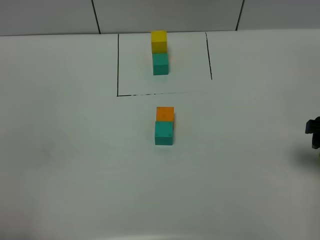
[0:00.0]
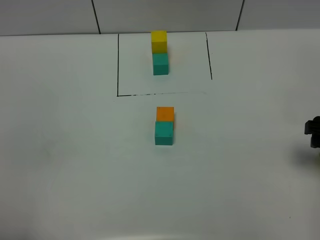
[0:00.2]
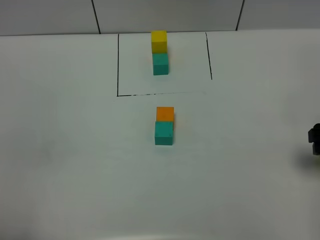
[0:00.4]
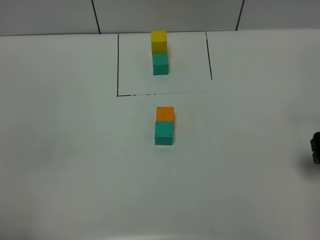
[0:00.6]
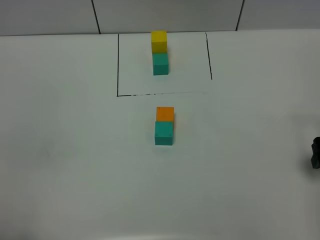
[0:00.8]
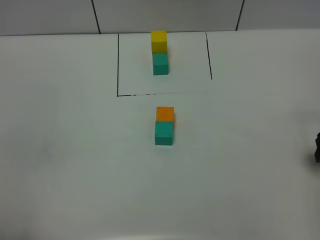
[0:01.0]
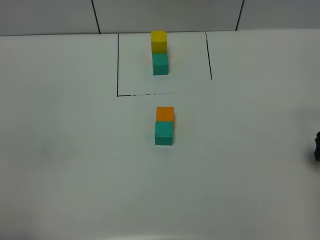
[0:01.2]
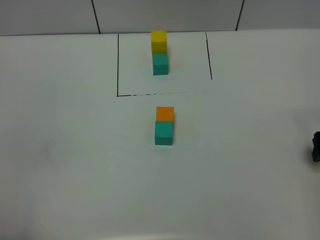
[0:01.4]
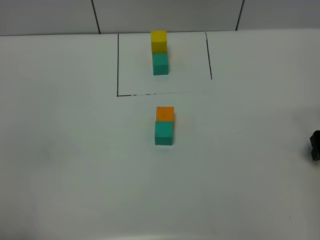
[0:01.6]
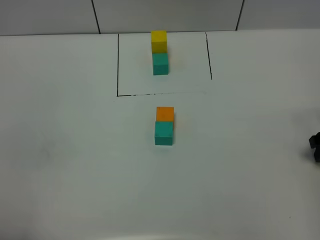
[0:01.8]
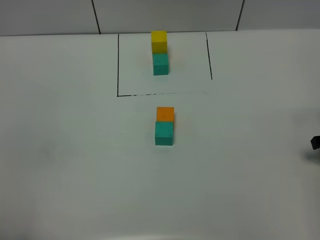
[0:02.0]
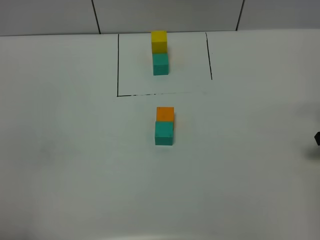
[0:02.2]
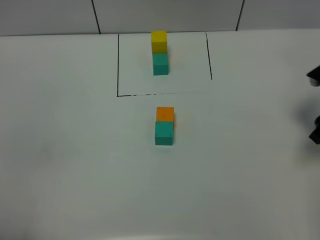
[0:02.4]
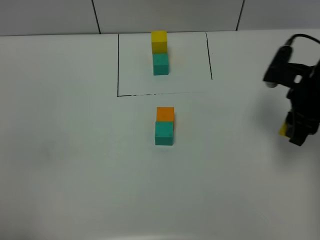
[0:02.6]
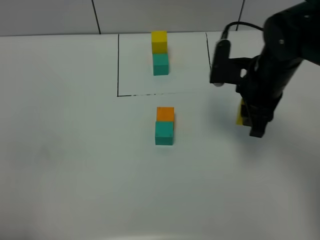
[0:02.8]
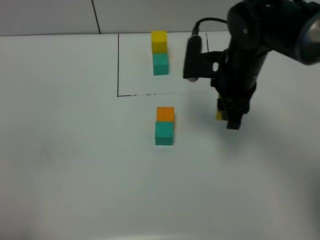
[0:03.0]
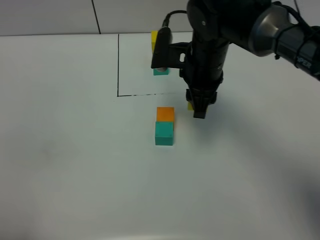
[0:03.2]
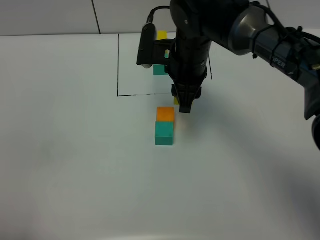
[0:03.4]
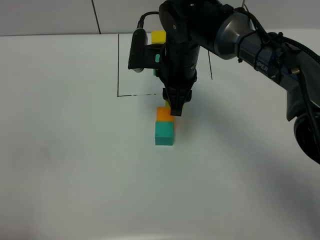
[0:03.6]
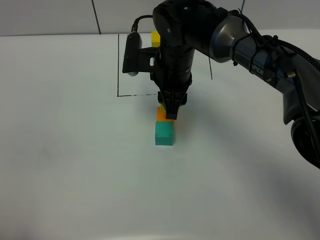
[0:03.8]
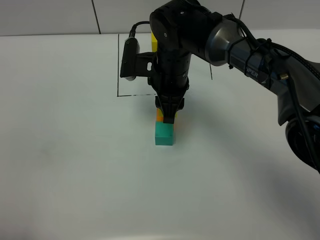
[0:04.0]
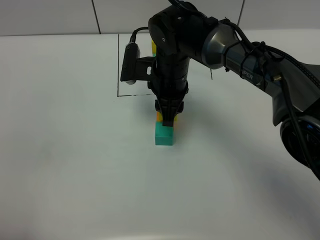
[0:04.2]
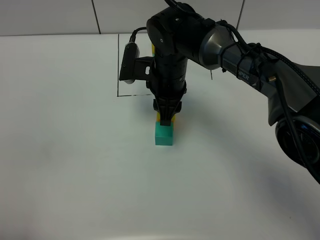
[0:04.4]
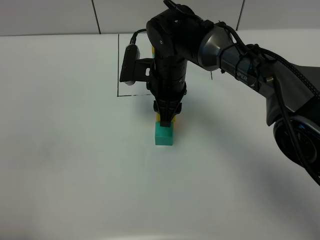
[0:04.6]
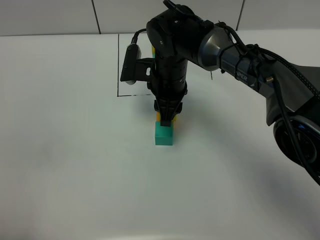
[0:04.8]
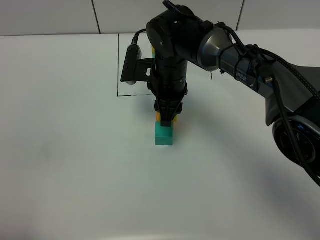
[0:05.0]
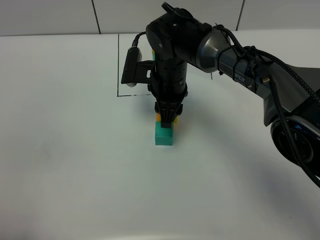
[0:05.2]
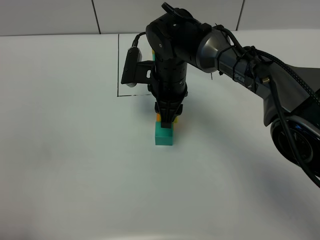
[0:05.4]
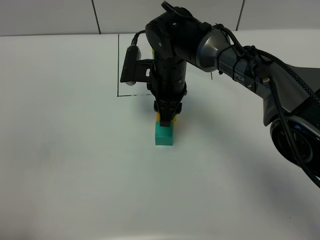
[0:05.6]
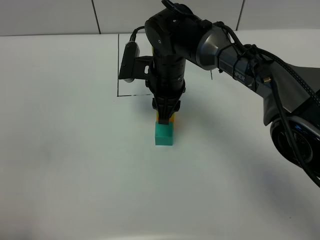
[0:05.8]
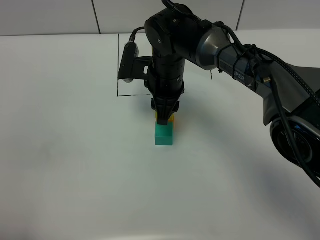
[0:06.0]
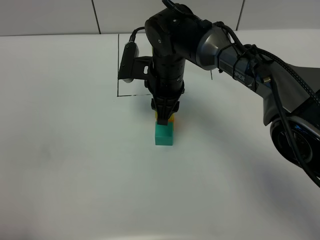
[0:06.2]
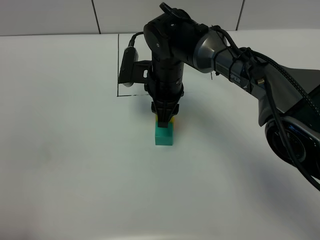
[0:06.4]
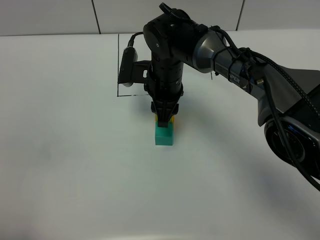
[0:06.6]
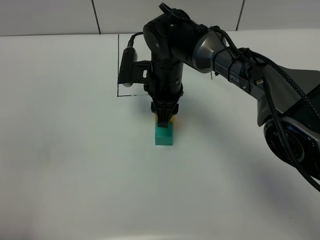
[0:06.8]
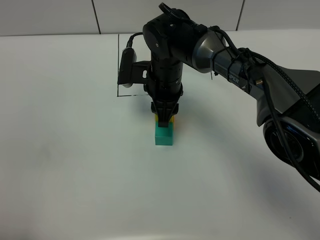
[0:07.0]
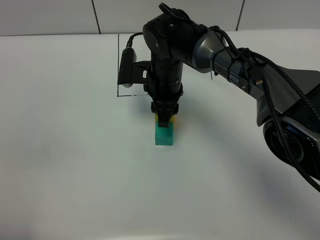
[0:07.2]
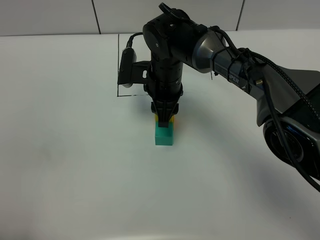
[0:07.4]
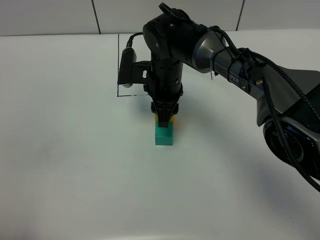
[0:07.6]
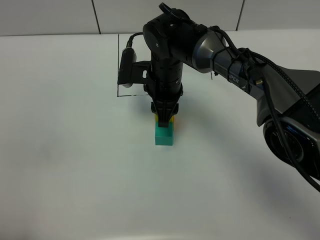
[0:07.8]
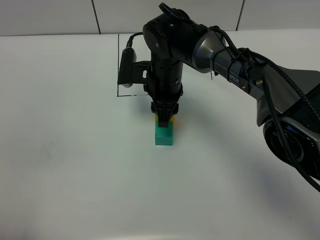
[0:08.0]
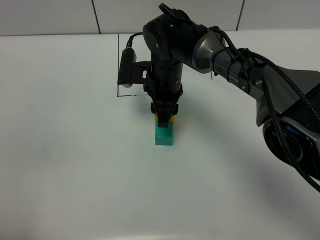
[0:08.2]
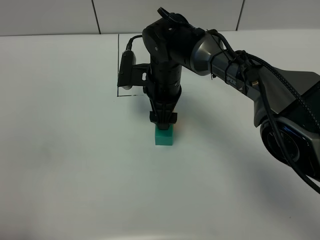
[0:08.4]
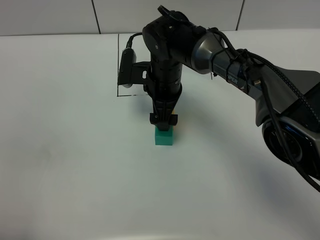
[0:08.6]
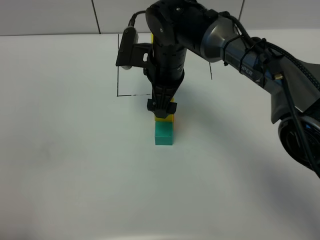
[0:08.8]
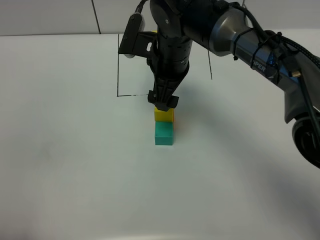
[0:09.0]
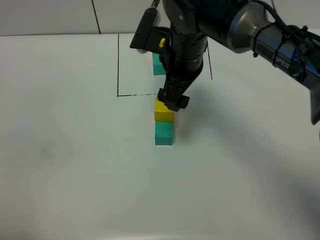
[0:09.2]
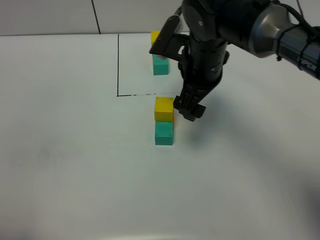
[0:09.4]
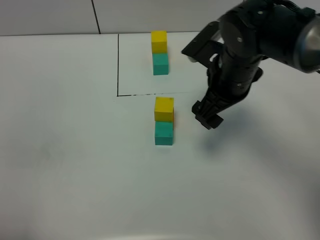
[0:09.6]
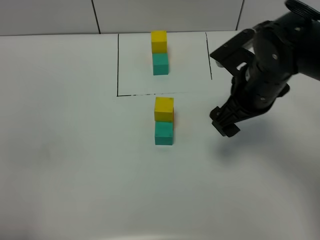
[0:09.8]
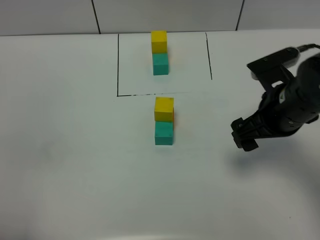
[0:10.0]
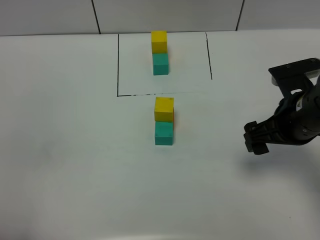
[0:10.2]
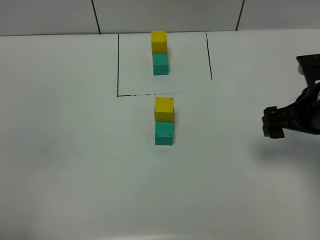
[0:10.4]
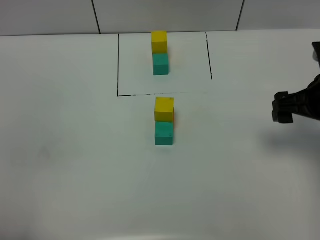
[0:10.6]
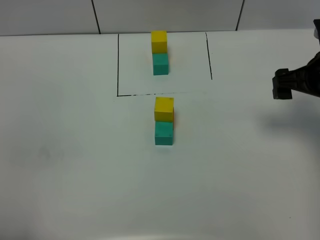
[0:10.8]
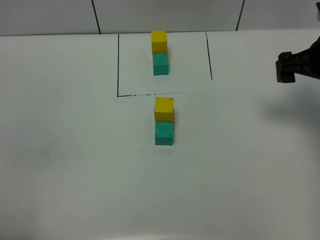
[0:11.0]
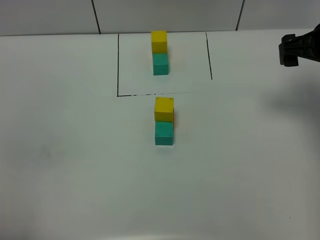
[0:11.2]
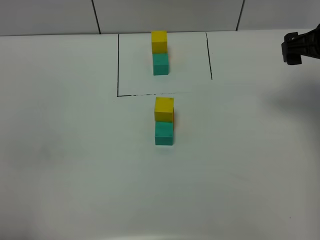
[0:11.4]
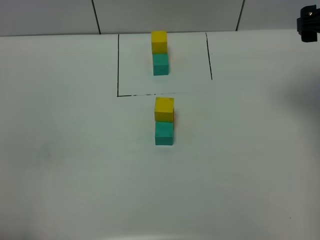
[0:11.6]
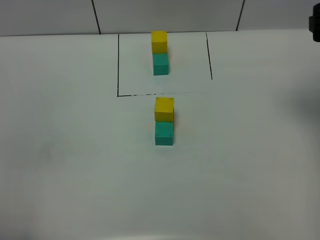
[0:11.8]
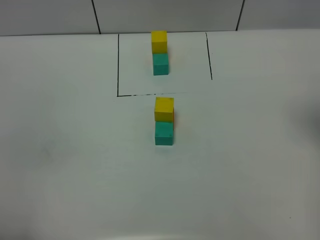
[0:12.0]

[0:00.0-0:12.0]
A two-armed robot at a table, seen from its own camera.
Task of the whole recording: According to the building block template in front, assemble the scattered blocks together.
Step, 0:00.0 to 0:08.4: Put the yellow build block on the orange build block.
0:01.6 to 0:03.0: The right gripper is displaced to the left and upward by roughly 30 cm, and closes its fingers.
0:03.0 to 0:04.4: The right gripper travels to the left by approximately 10 cm.
0:04.4 to 0:06.0: Neither gripper changes place.
0:06.0 to 0:07.6: Both grippers stay put.
0:07.6 to 0:09.0: The right gripper goes some 5 cm upward, and opens up.
0:09.0 to 0:10.4: The right gripper is displaced to the right and backward by approximately 25 cm.
0:10.4 to 0:12.0: The right gripper moves upward and to the right, roughly 15 cm.

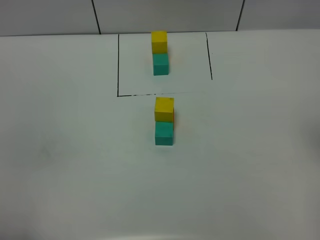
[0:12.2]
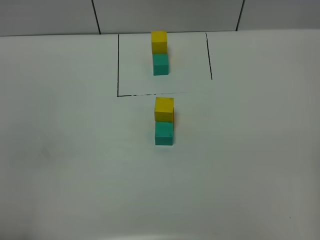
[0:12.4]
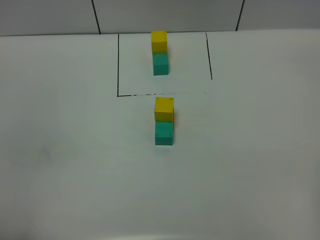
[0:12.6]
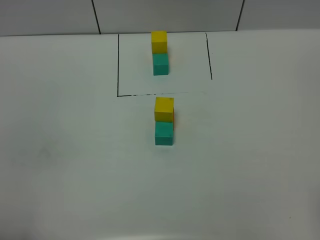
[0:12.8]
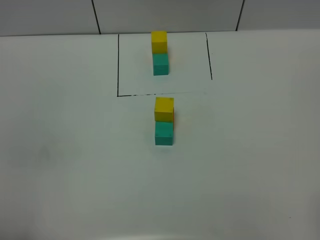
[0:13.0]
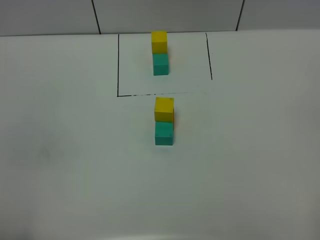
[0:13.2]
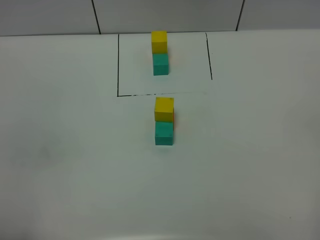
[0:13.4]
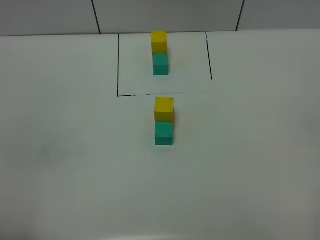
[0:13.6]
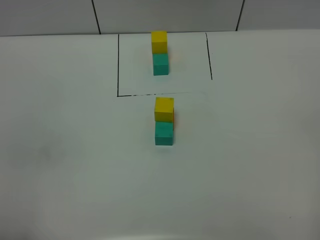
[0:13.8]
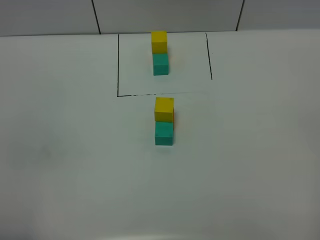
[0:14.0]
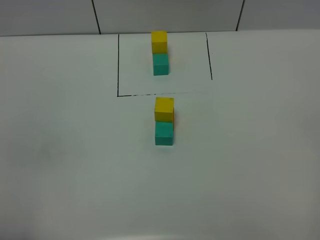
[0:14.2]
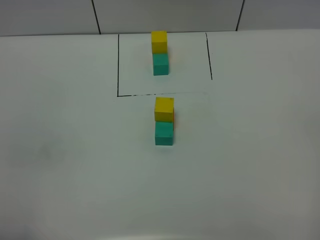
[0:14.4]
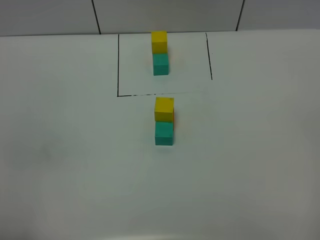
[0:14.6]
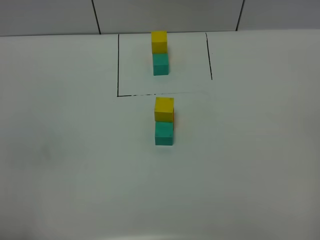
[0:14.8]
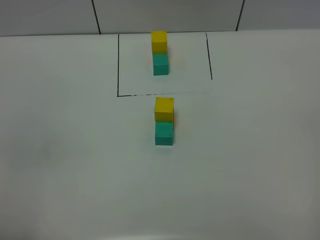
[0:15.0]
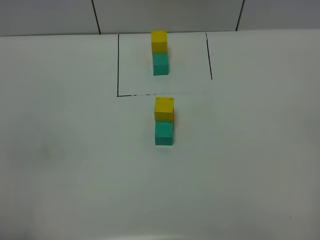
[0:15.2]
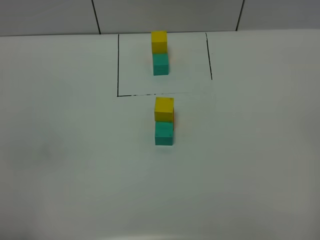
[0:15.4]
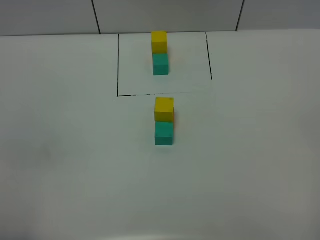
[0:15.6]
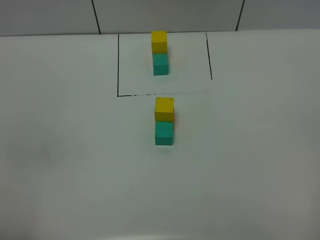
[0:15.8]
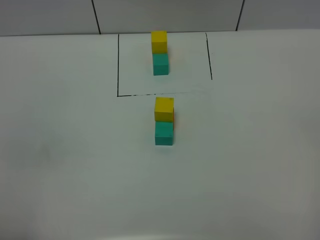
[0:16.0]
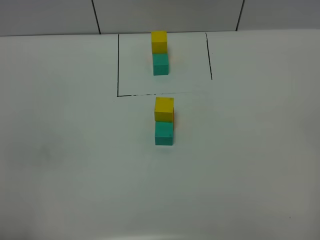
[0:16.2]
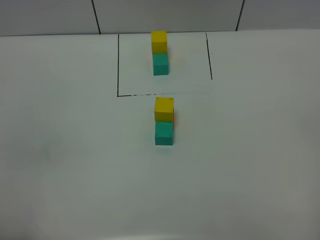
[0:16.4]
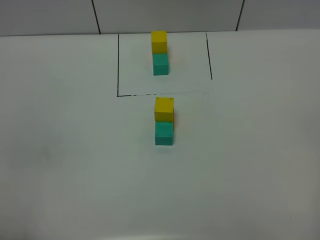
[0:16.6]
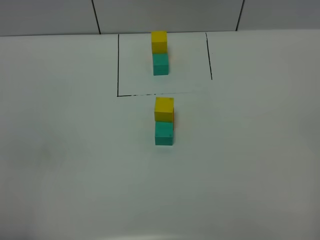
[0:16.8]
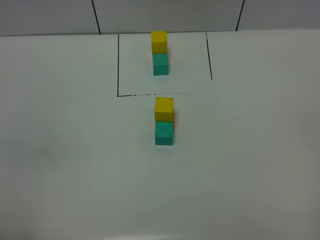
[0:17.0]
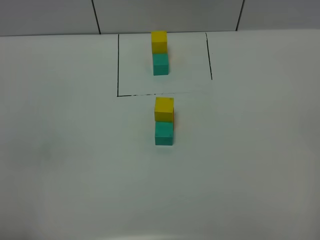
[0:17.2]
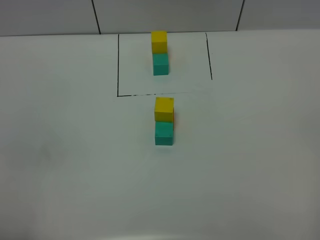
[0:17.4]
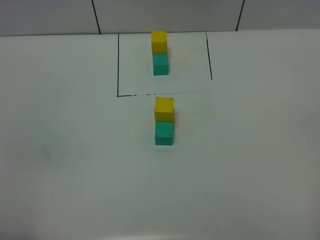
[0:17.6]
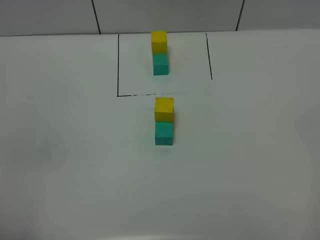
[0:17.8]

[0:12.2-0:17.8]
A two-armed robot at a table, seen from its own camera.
Task of the whole recording: According to the building block template in front, assemble the scattered blocks together.
0:13.6 to 0:17.8: The two grippers keep their place.
